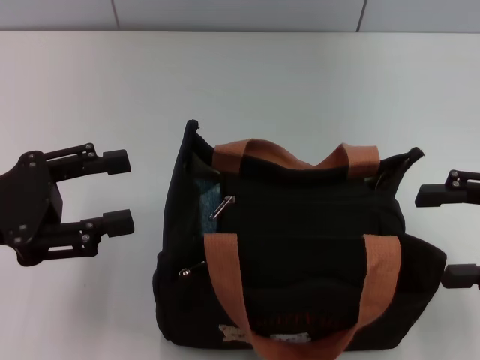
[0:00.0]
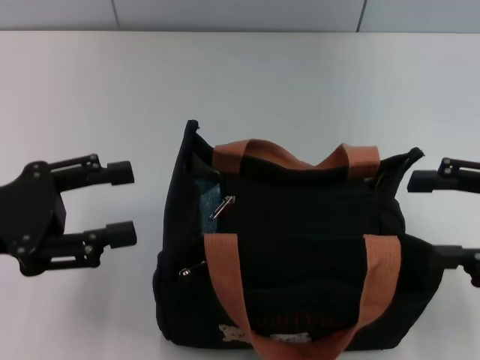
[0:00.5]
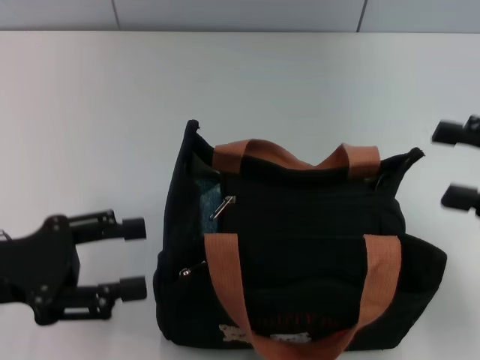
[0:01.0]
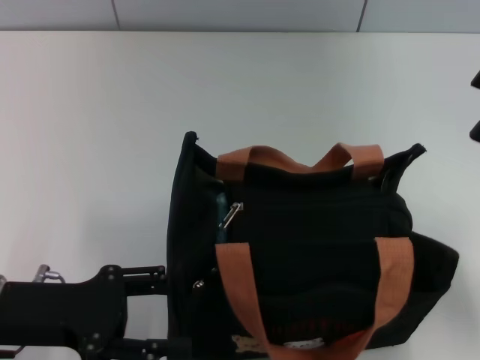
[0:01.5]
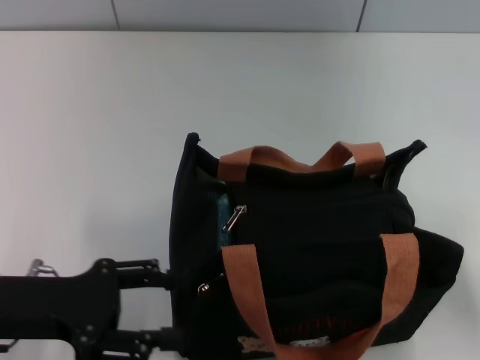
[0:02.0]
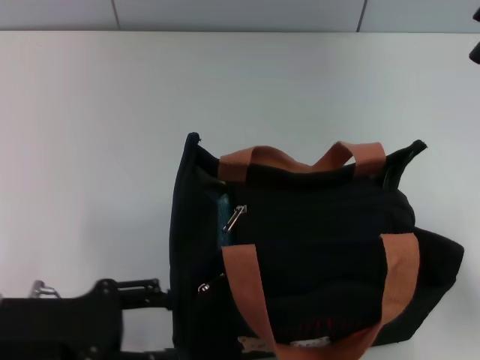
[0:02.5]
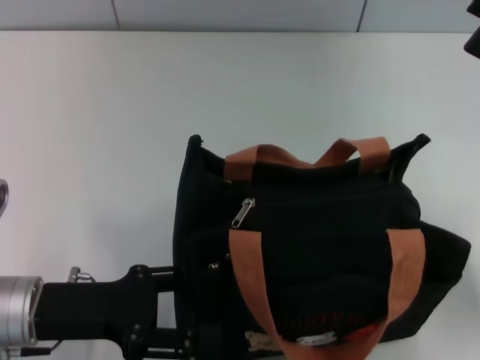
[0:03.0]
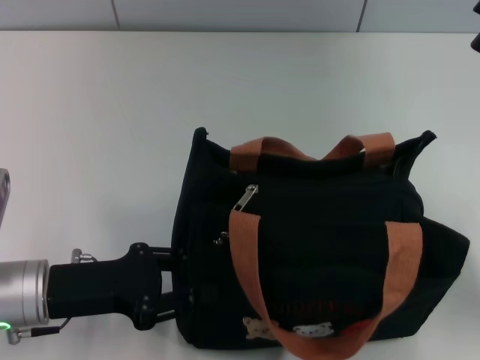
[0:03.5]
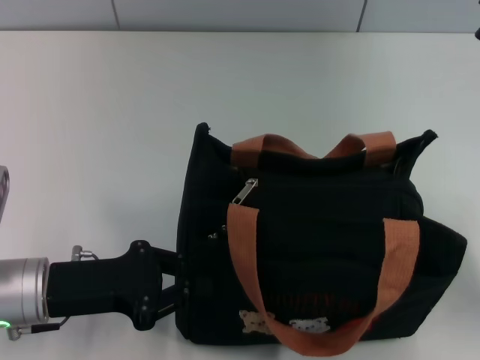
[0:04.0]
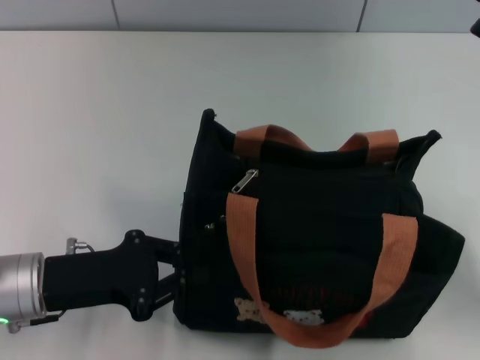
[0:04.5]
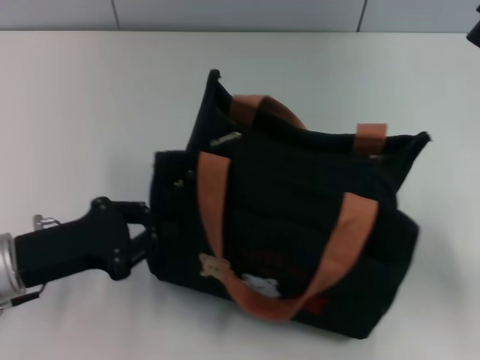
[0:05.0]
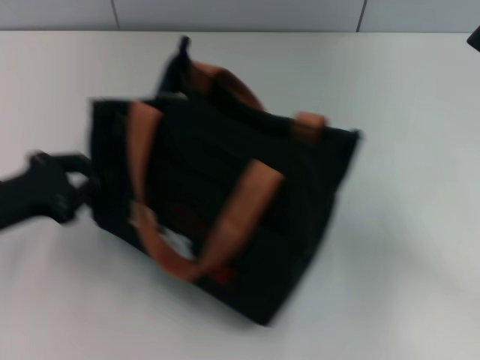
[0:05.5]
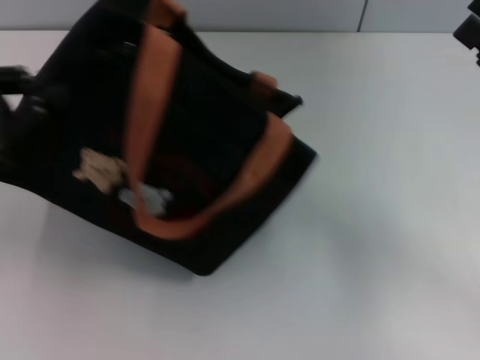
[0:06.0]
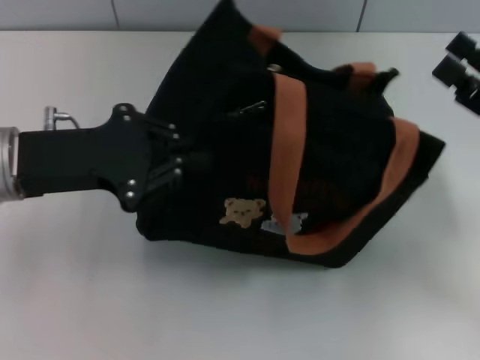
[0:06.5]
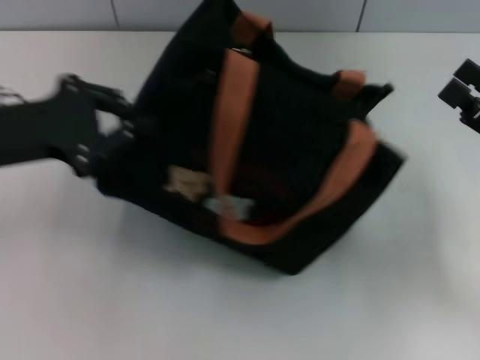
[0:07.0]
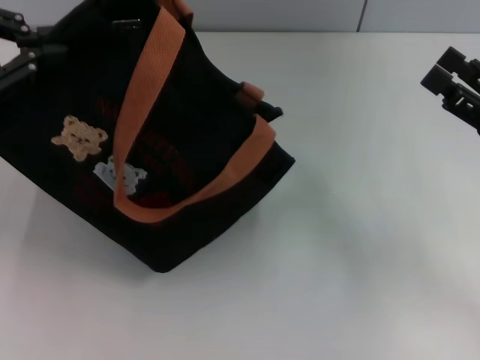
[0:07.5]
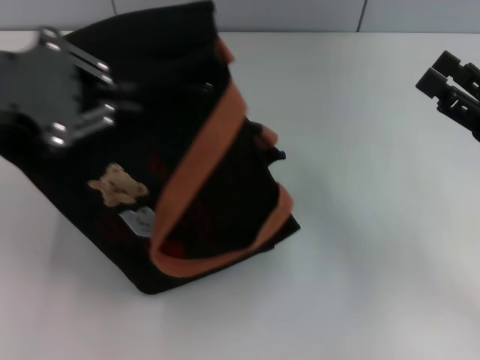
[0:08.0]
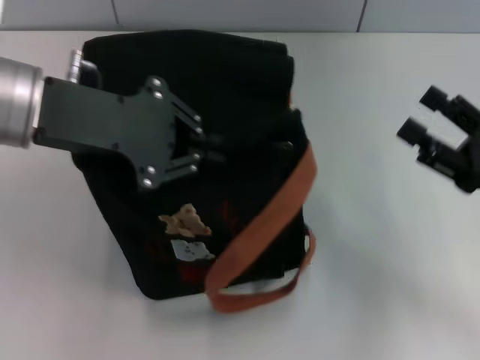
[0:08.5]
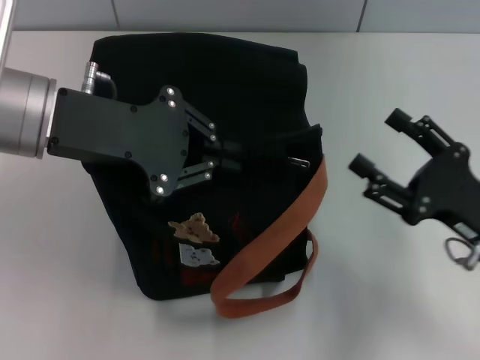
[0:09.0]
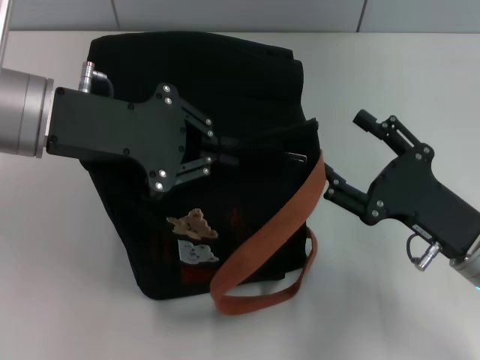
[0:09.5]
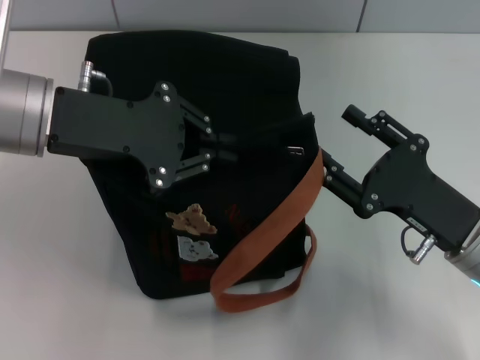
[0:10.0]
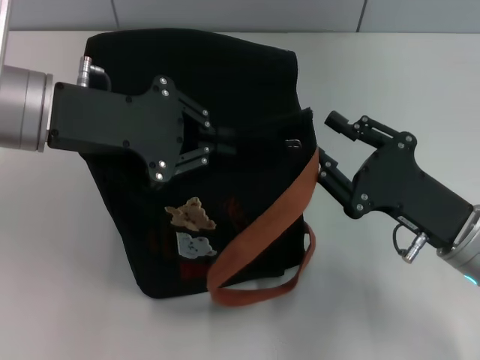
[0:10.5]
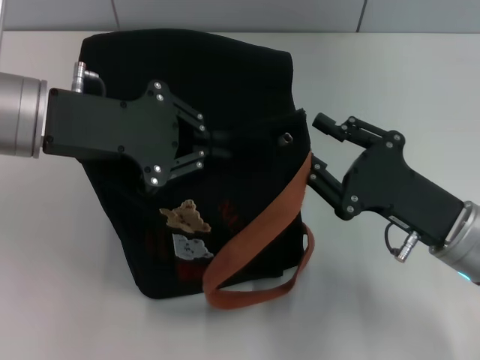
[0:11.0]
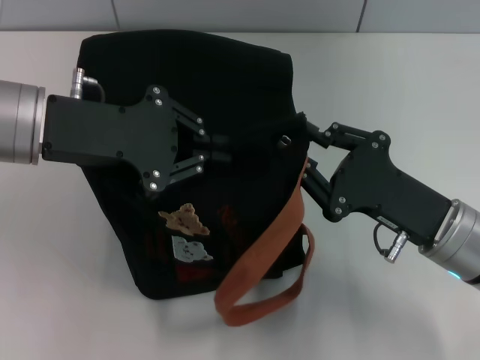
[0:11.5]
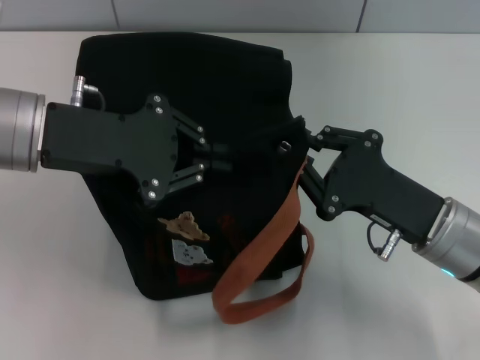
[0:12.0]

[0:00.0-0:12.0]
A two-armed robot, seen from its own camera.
0:00.0 to 0:02.0: The left gripper goes some 5 cm downward.
0:02.0 to 0:04.0: The left gripper closes up.
0:04.0 to 0:06.0: The left gripper moves upward and to the left, roughly 15 cm.
0:06.0 to 0:08.0: The left gripper moves upward and to the right, roughly 10 cm.
0:08.0 to 0:10.0: The left gripper is displaced to the right by some 5 cm; the right gripper is displaced to the left by roughly 10 cm.
0:10.0 to 0:12.0: The right gripper closes up.

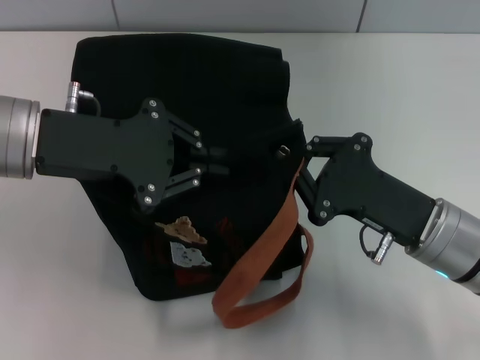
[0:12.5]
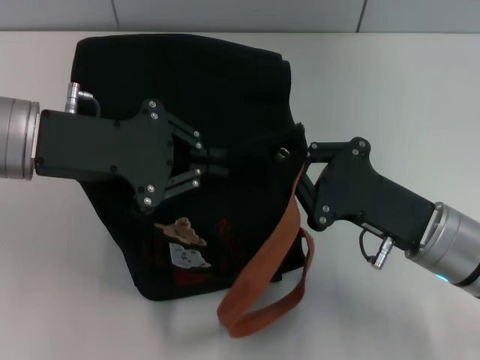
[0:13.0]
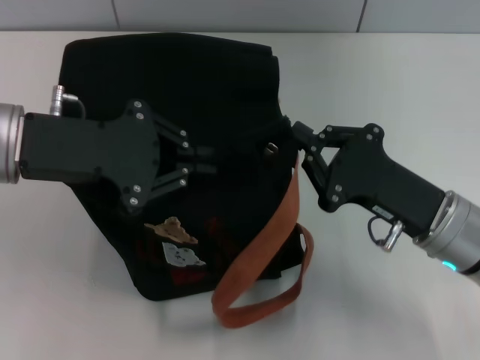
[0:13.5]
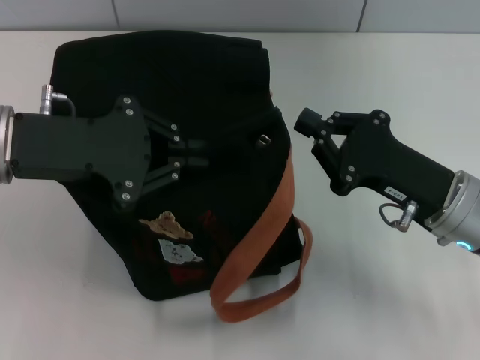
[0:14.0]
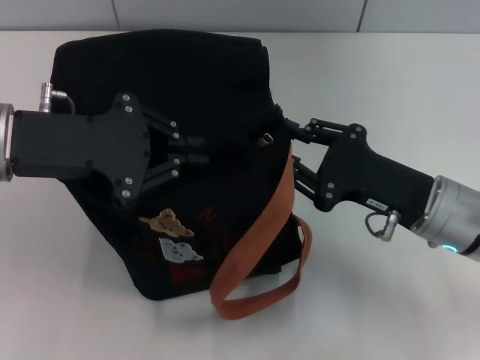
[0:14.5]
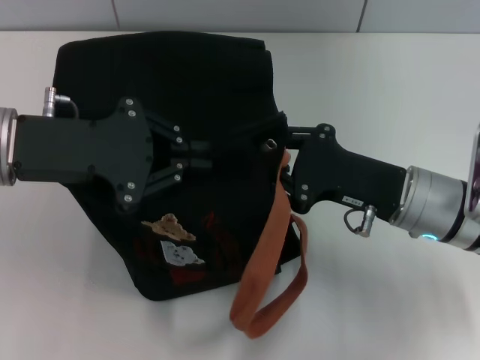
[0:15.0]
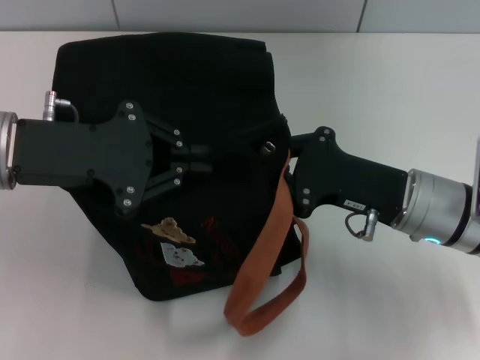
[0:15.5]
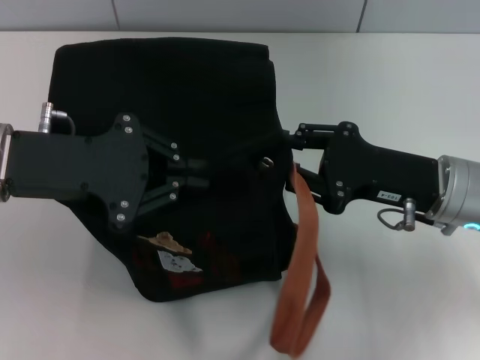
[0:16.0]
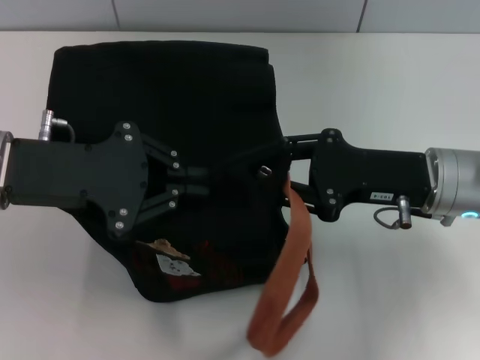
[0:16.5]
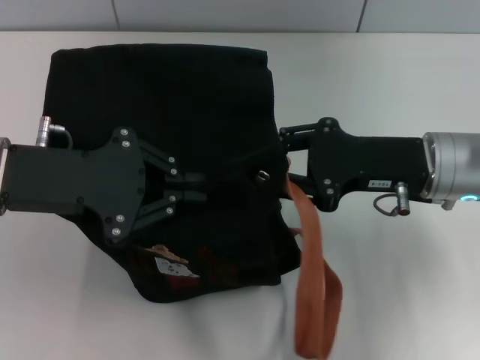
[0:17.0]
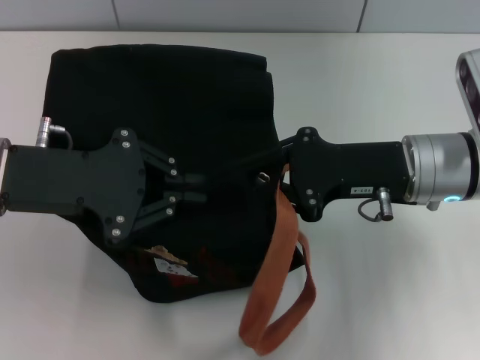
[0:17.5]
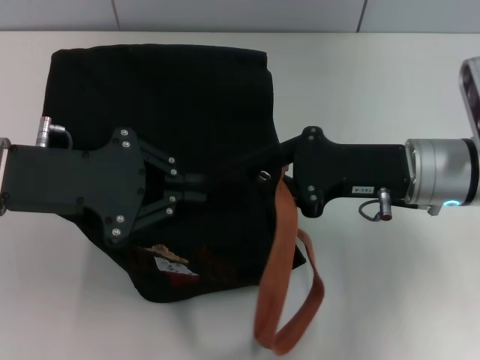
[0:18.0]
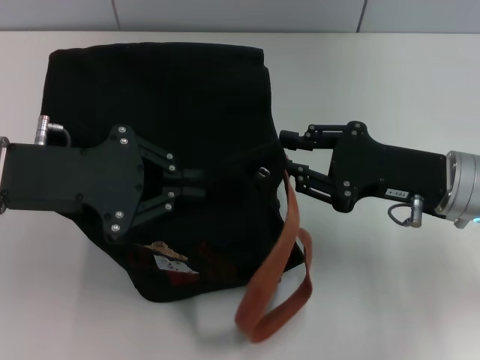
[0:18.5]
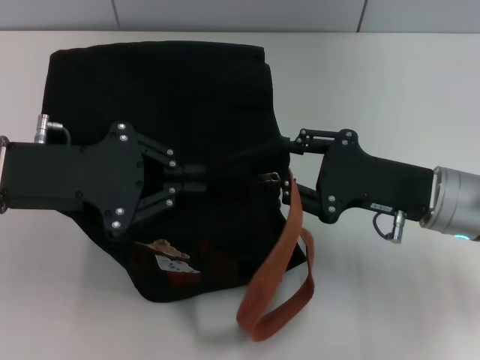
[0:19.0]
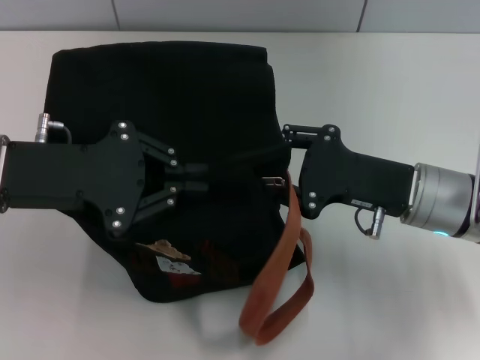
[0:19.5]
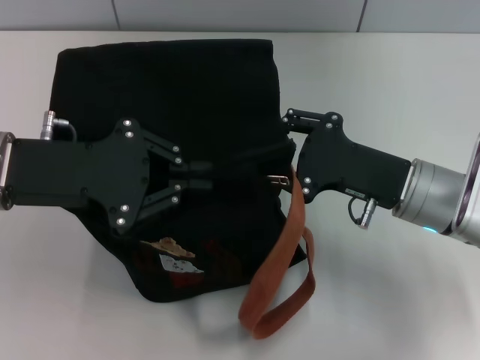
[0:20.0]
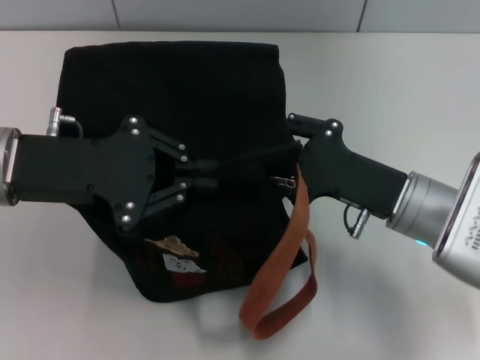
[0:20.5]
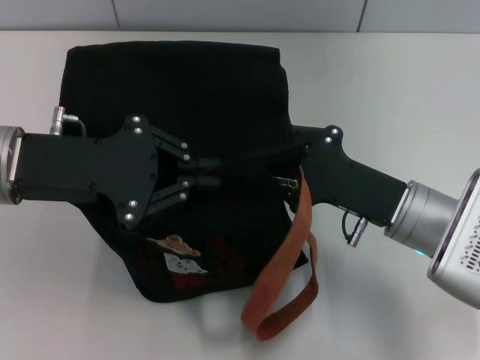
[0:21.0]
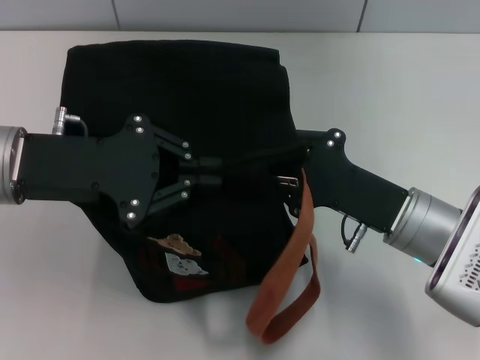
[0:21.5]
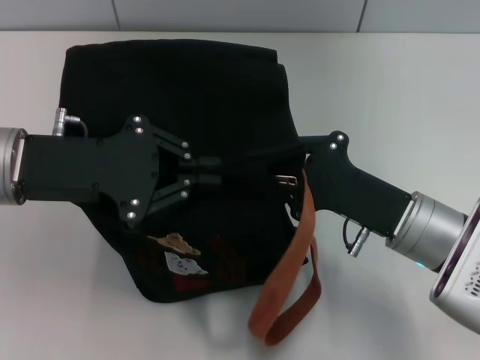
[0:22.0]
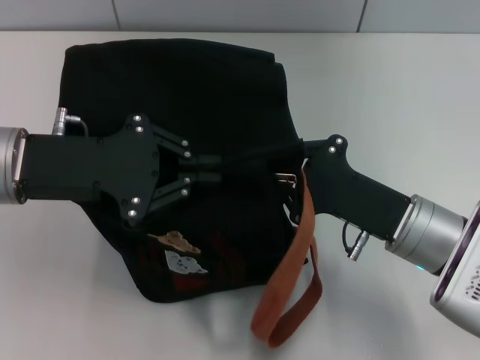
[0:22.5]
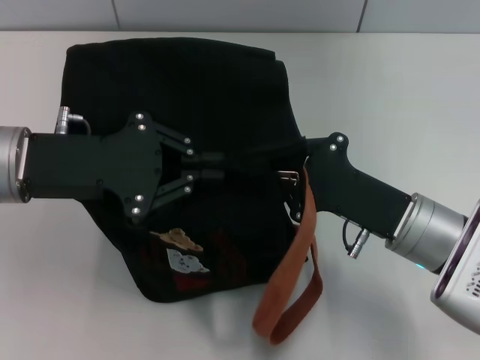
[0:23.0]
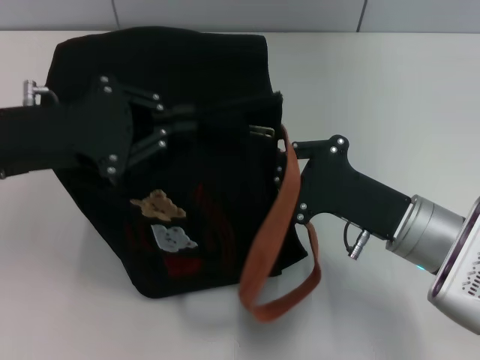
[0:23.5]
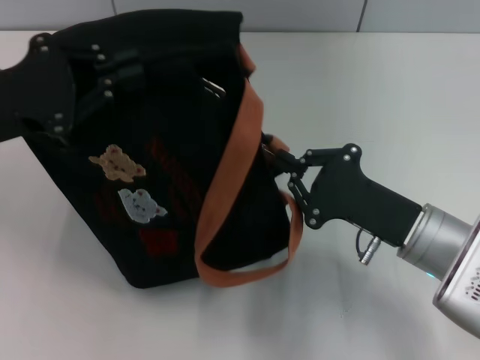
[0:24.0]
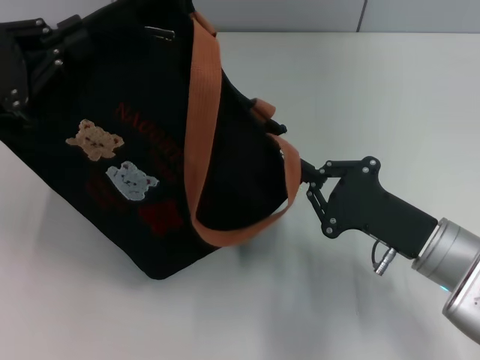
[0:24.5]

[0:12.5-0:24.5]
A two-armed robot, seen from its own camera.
0:16.5 to 0:18.5: The grippers stay close to where they were, moving slightly.
0:18.5 to 0:20.5: The right gripper shifts by approximately 5 cm.
0:20.5 to 0:22.5: The right gripper closes up.
0:22.5 to 0:24.5: The left gripper heads to the left, covering roughly 5 cm.

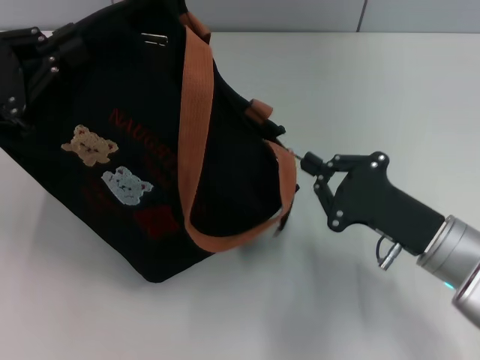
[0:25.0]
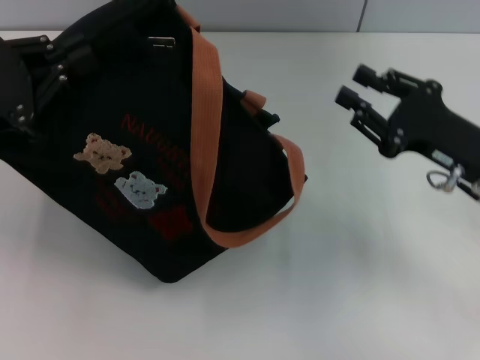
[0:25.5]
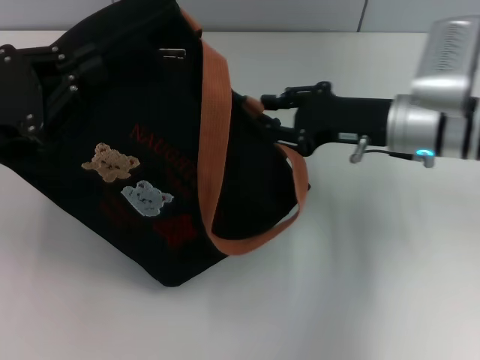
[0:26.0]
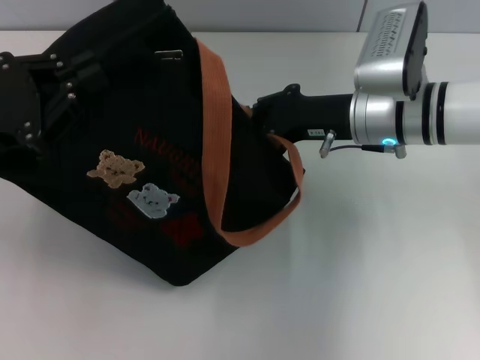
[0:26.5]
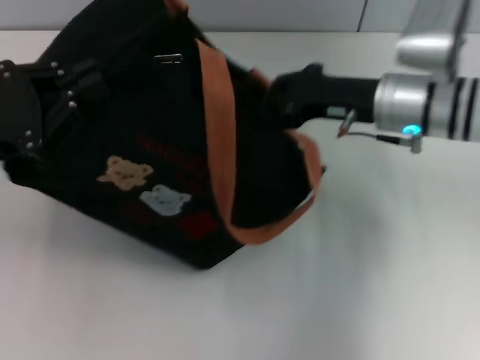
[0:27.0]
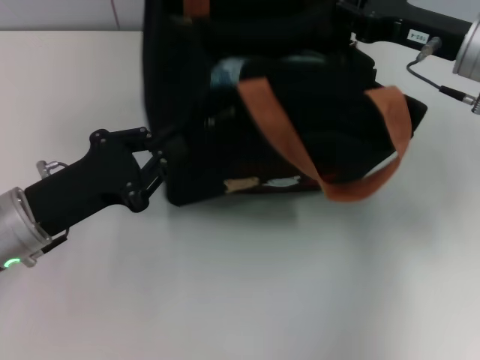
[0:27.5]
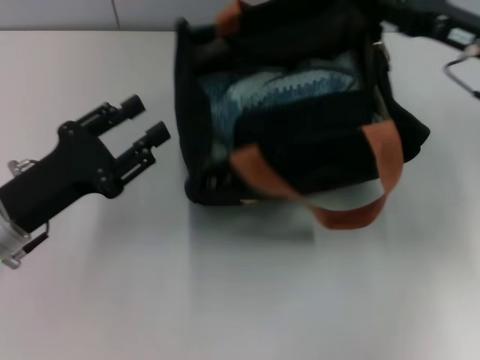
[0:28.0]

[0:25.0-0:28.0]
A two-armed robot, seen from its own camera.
Step, 0:25.5 to 0:27.5: Grab the bag with your left hand.
0:25.0 to 0:26.5: The right gripper heads forward, upward and to the left, covering roughly 15 cm, and opens up.
0:26.5 to 0:28.0: The right gripper heads to the right and upward, covering approximately 15 cm, and closes, then opens again. The left gripper shifts about 5 cm downward, and opens up.
